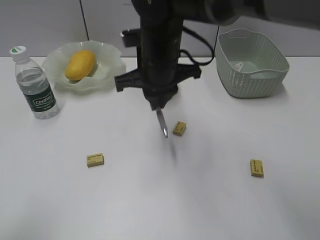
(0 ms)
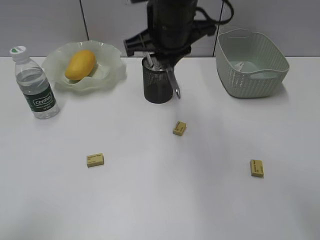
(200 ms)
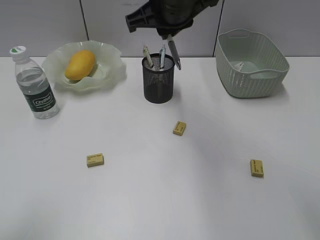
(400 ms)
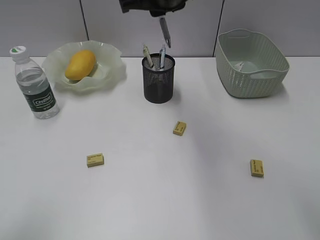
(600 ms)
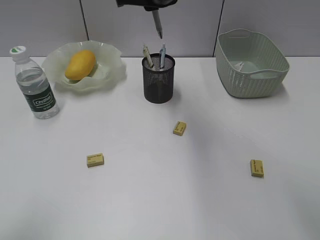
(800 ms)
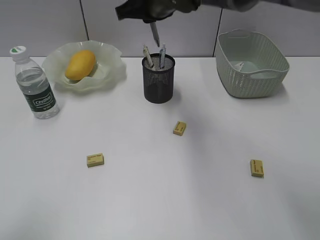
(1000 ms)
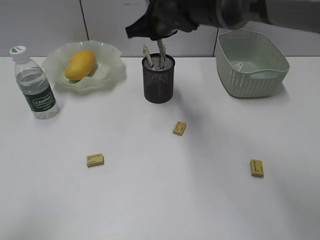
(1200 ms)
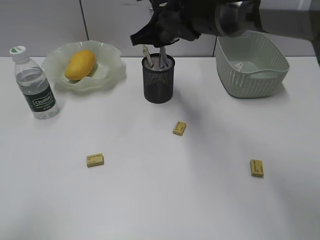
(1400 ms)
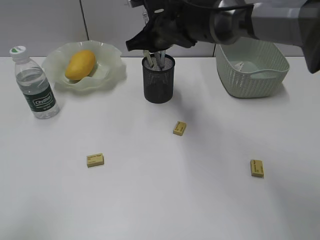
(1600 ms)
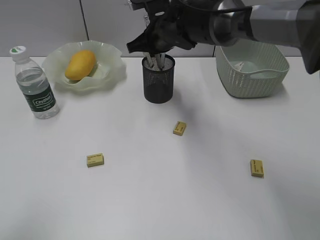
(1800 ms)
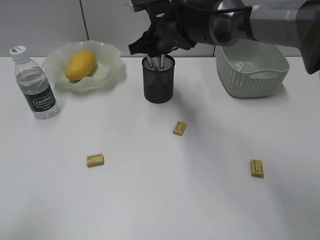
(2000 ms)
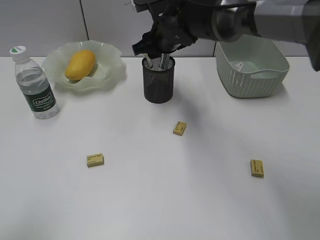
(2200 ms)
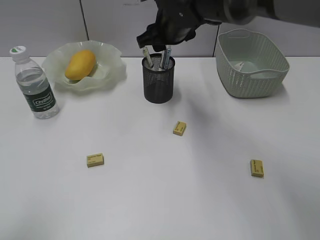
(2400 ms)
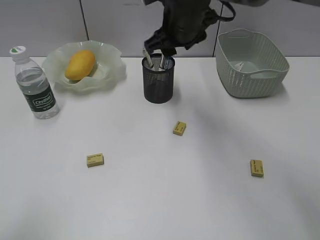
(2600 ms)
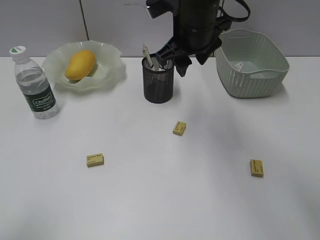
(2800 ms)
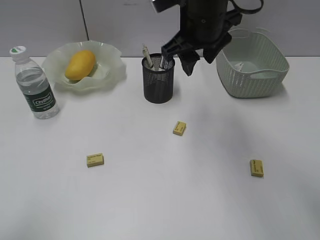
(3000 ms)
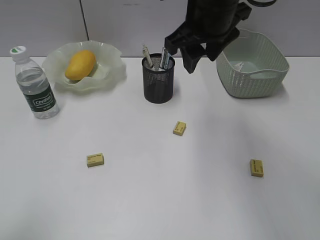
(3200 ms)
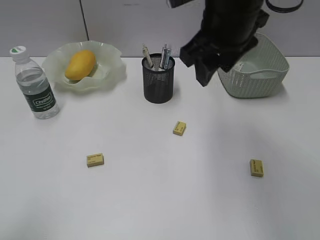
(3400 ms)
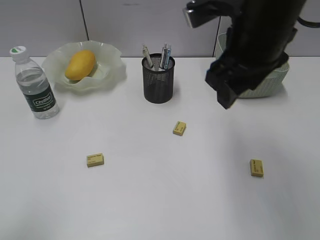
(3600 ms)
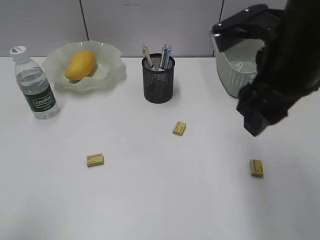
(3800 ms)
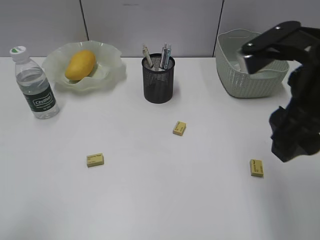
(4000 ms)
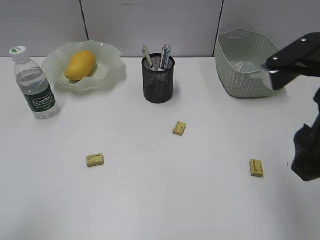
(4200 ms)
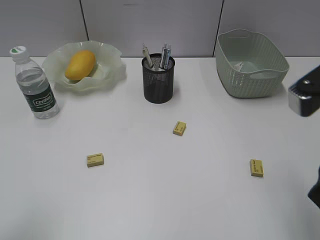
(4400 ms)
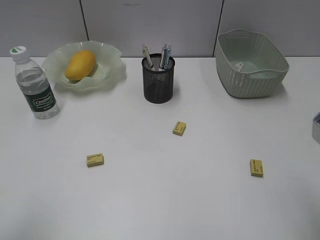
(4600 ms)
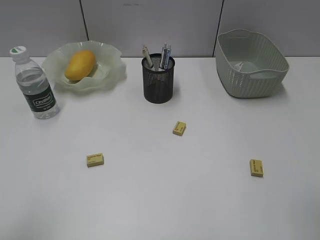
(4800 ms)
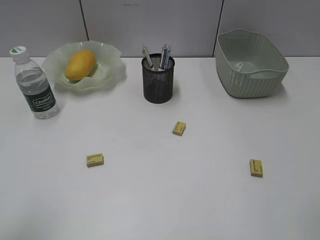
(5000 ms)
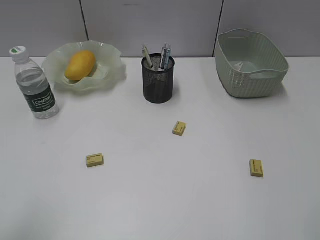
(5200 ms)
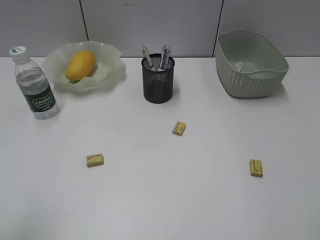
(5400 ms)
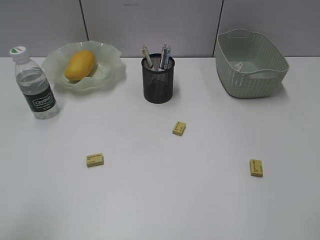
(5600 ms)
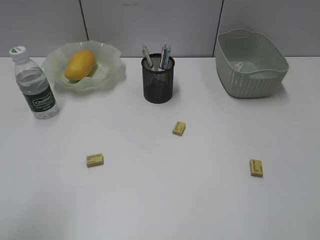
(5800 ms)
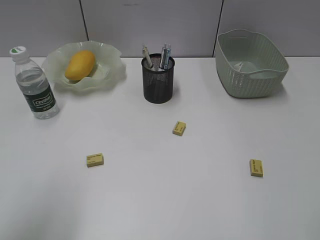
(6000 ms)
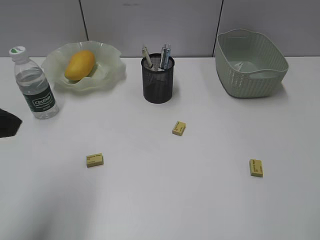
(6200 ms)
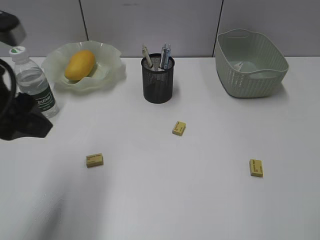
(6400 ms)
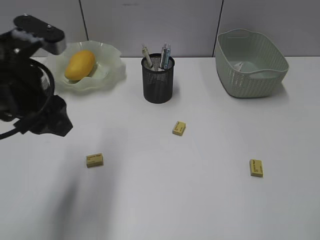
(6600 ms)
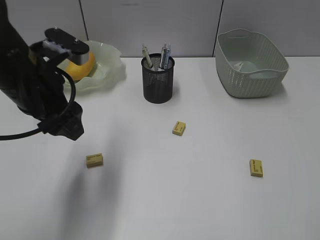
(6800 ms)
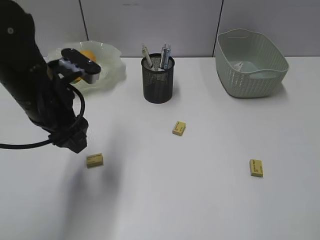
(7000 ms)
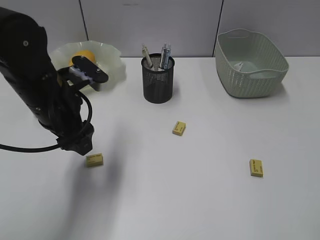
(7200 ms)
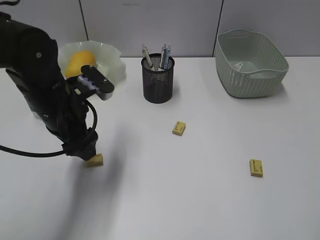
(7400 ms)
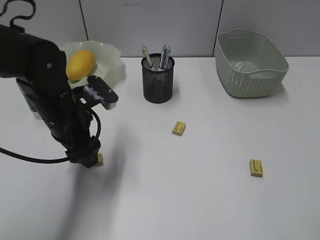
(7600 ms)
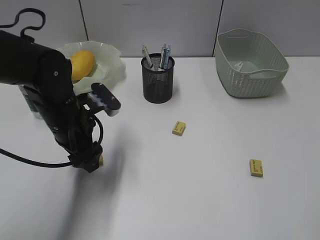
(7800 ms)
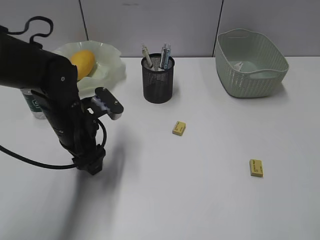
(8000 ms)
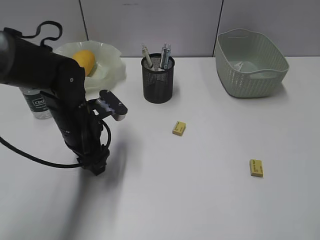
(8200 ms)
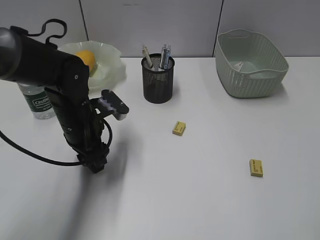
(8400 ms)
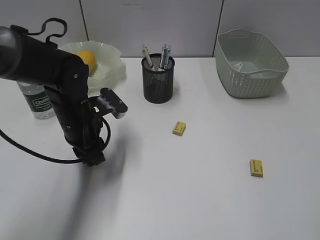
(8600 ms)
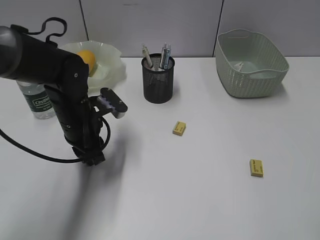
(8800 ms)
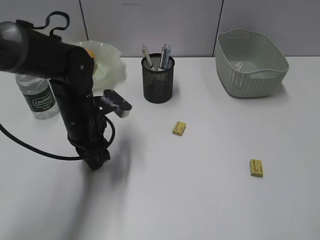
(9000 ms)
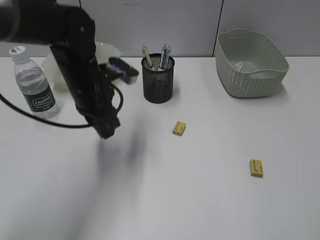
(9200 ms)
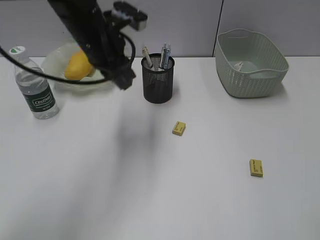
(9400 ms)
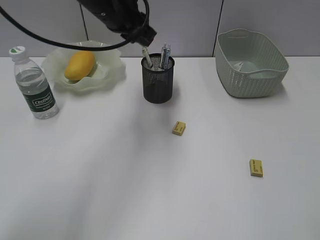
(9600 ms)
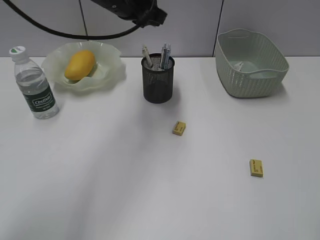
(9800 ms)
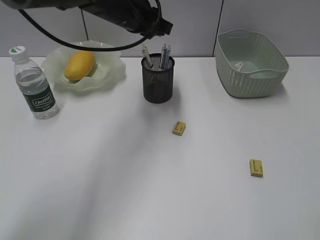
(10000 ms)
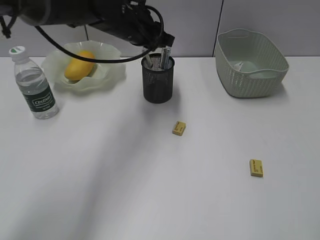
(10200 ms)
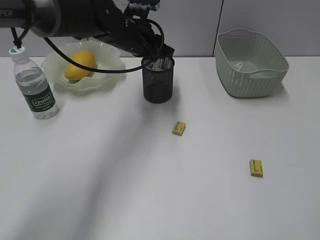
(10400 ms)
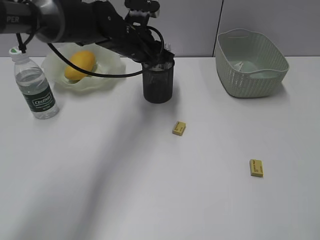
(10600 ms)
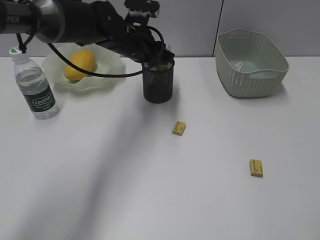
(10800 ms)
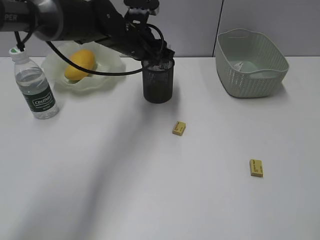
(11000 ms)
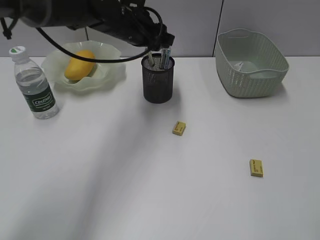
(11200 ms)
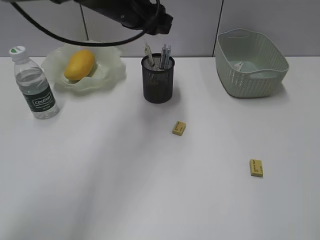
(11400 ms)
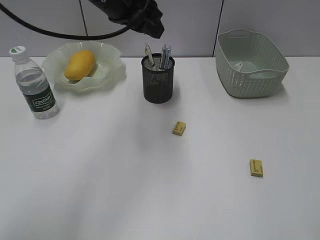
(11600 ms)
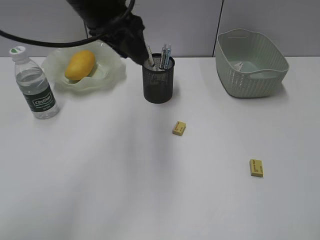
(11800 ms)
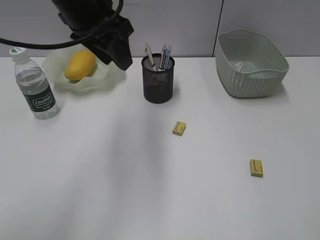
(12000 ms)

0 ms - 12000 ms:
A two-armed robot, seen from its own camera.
Step, 0 ms - 2200 ms: Place the gray pen in pen holder with right gripper.
Step, 2400 ms - 8800 ms: Grasp the eraser with left gripper.
Step, 9000 ms - 10800 ms: Place the eraser in pen holder with left gripper.
0 ms - 1600 ms: The right gripper heads forward, covering about 10 cm, and goes upward and returns, some 10 cm each way.
1600 ms - 3000 ms: The right gripper moves backward and upward, roughly 10 cm, and opens.
3000 ms - 4400 ms: The right gripper is displaced backward and to the right by about 25 cm.
4400 ms - 6000 ms: The left gripper is displaced upward by approximately 5 cm; the right gripper is displaced backward and to the right by approximately 10 cm.
6000 ms - 7600 ms: The left gripper is displaced forward, downward and to the right by about 30 cm.
7600 ms - 9000 ms: The left gripper closes.
9000 ms - 10400 ms: The left gripper is displaced forward, upward and to the right by roughly 15 cm.
10400 ms - 12000 ms: The left gripper heads upward, backward and to the left, covering roughly 15 cm.

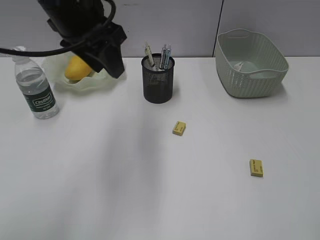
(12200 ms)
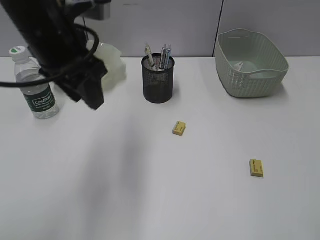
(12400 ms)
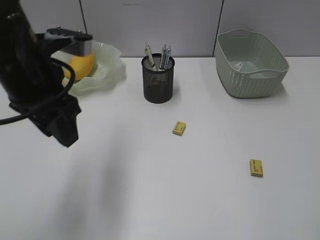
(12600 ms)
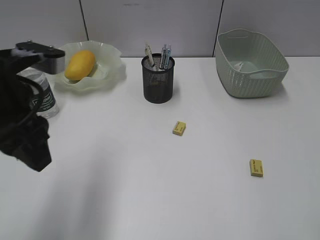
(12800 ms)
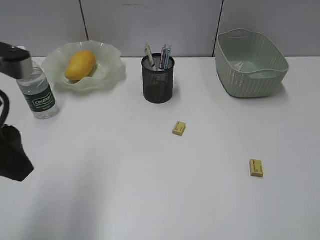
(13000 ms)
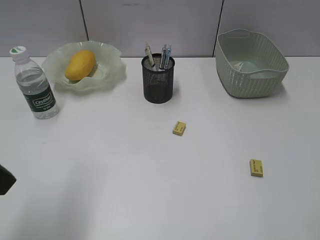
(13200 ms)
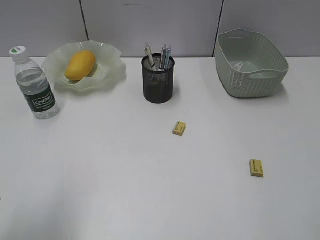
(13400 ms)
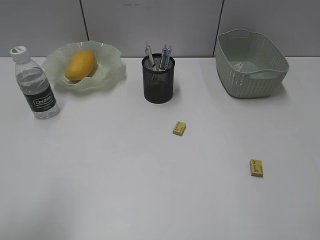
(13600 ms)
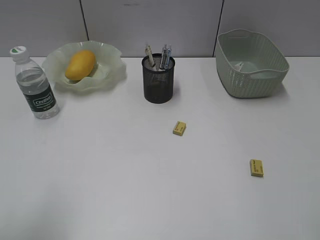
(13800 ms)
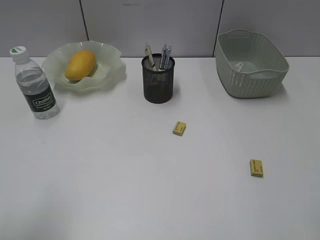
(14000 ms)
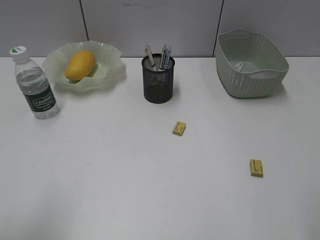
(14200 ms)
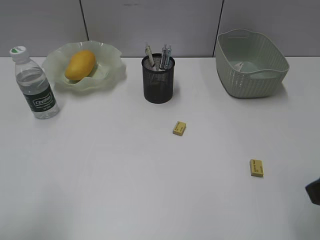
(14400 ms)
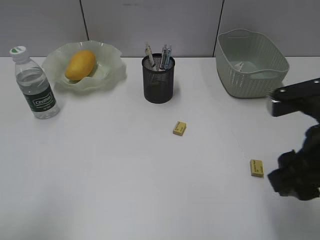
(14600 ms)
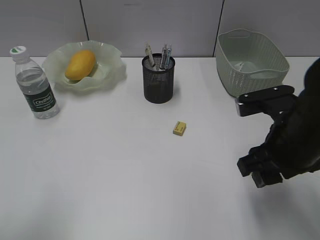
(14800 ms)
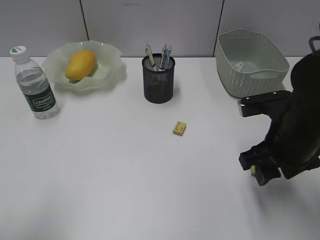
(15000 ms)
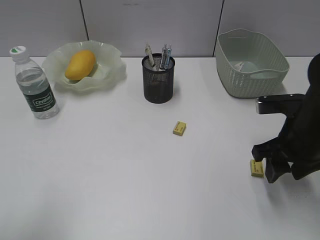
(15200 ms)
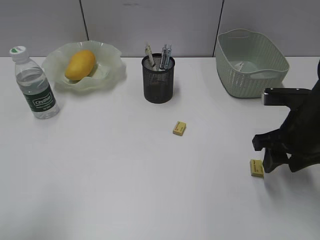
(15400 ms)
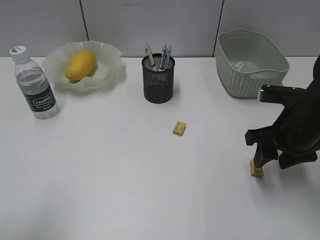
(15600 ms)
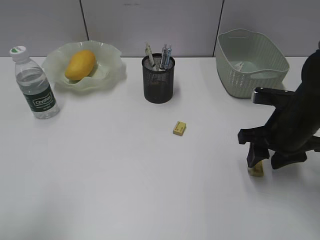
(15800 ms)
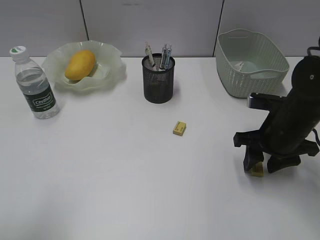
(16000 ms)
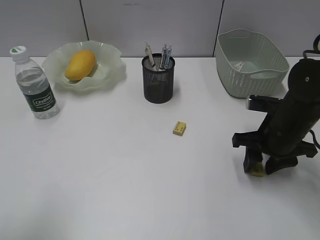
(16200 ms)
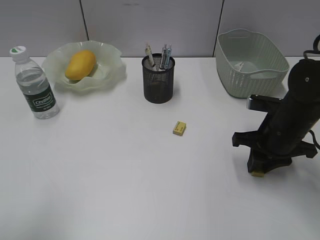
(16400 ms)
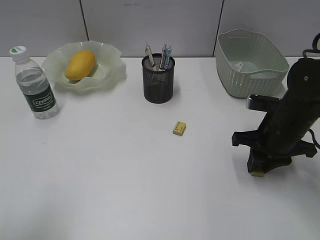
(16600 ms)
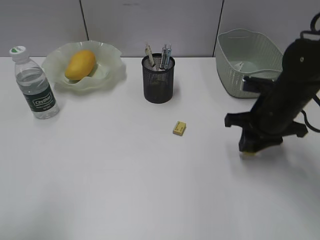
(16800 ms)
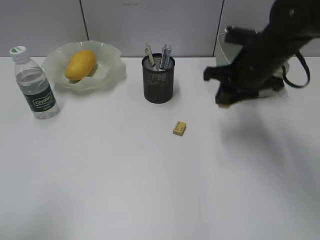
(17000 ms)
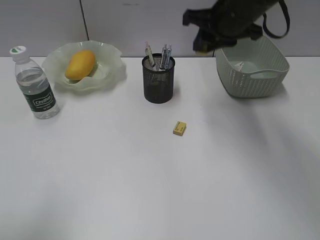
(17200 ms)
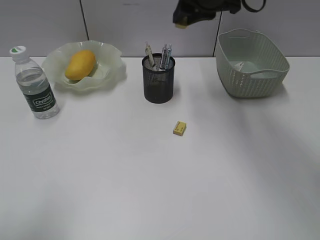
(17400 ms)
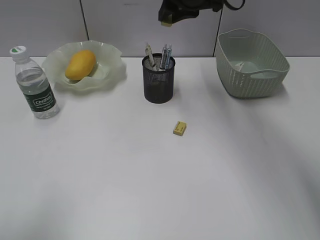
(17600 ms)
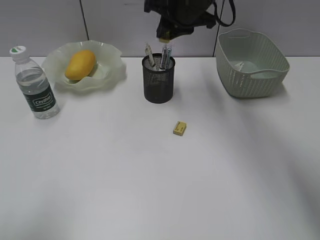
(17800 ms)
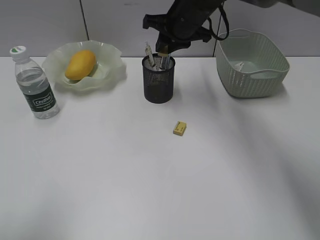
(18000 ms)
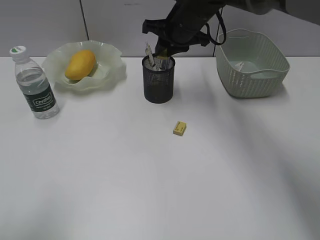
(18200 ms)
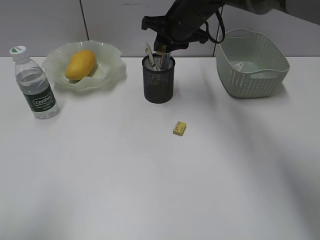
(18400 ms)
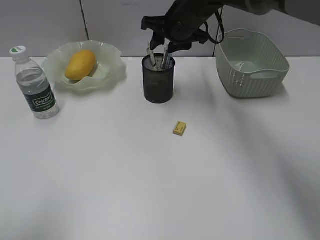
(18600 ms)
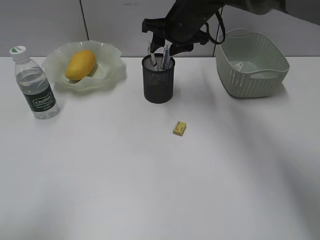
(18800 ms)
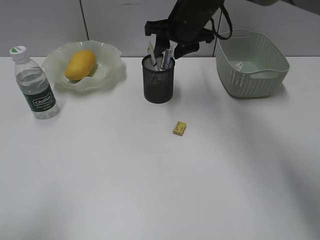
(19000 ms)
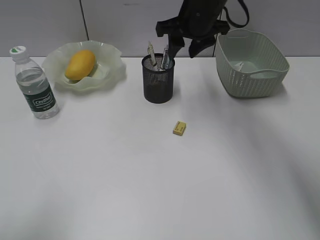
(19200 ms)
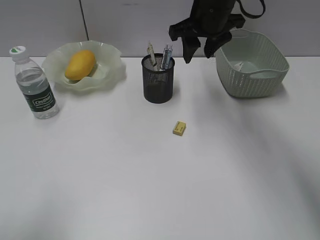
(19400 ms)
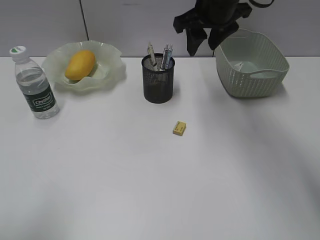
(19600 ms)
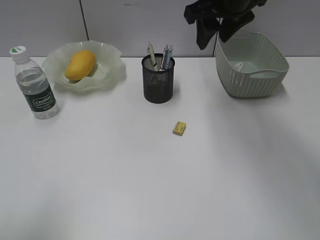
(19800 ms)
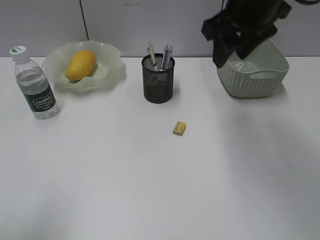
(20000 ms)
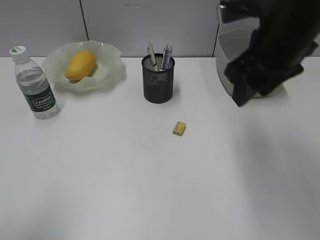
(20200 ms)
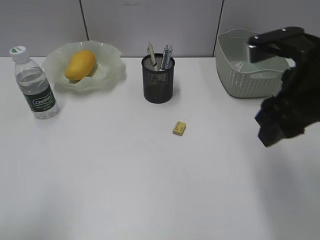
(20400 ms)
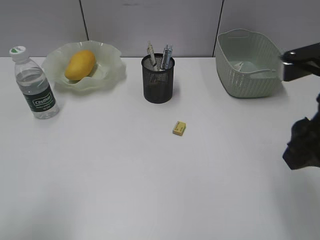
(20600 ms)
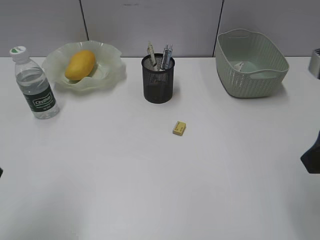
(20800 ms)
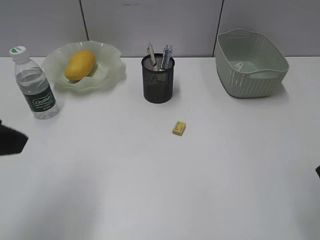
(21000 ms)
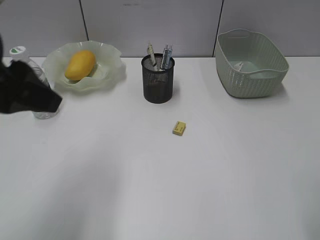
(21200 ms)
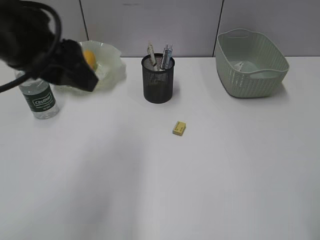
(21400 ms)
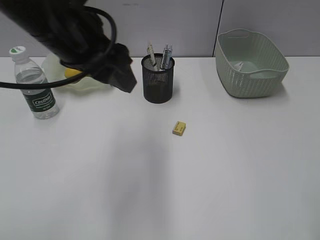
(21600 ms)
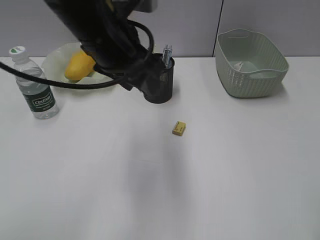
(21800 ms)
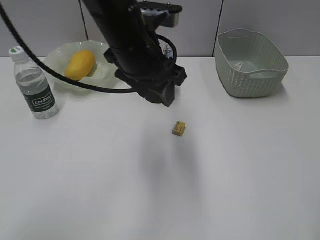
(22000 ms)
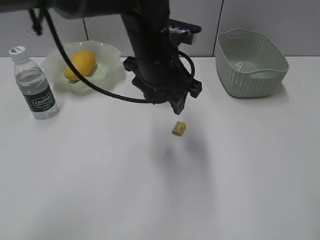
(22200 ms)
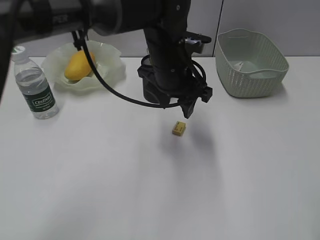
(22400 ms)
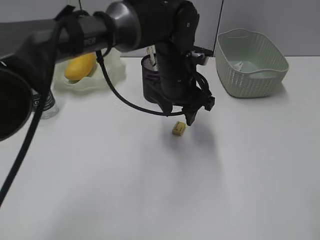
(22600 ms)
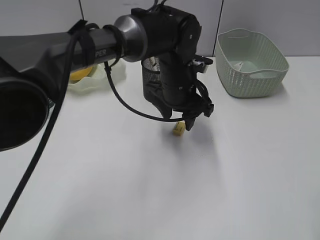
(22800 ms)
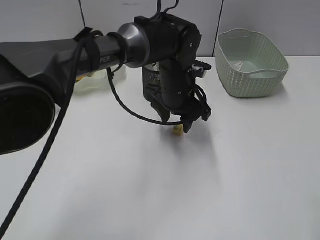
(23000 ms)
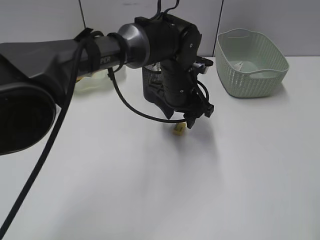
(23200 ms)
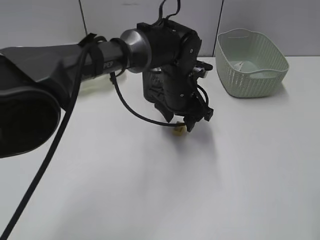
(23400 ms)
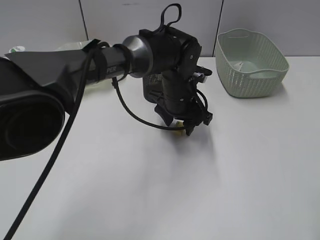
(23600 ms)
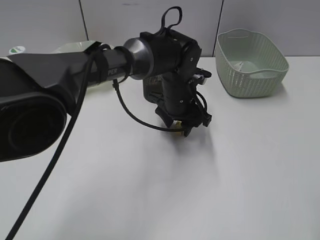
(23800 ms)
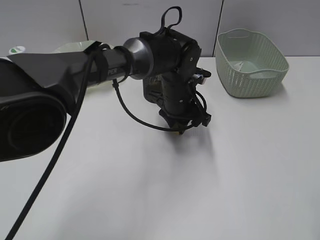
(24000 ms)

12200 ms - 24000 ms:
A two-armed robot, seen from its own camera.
Step, 12200 ms - 16400 ms: Grasp the eraser with right gripper.
Step, 16600 ms - 18600 ms: Place the eraser in pen holder with right gripper.
12200 ms - 13600 ms: The left gripper is displaced backward and to the left by about 25 cm.
13600 ms - 15200 ms: The right gripper goes roughly 20 cm forward and downward.
15200 ms - 16600 ms: The right gripper changes place by roughly 5 cm, and closes up.
16600 ms - 18200 ms: The right gripper shifts approximately 25 cm forward, to the left and upward.
18200 ms - 19600 ms: The right gripper is displaced upward by about 5 cm, and opens up.
19600 ms - 21000 ms: The left gripper heads forward, covering roughly 5 cm; the right gripper goes about 30 cm backward and to the right.
21000 ms - 22600 ms: The left gripper heads to the right, forward and downward, covering some 35 cm. The right gripper changes place by roughly 5 cm.
22600 ms - 24000 ms: The left gripper goes roughly 5 cm downward, and closes.
